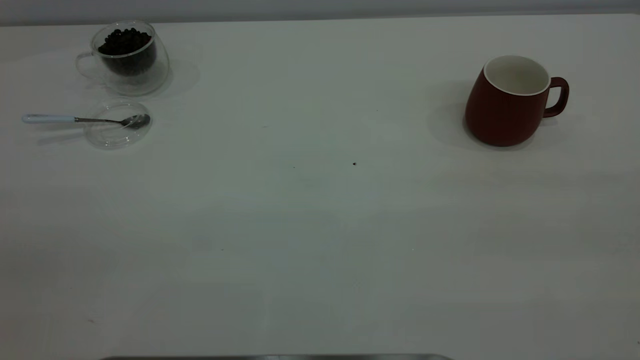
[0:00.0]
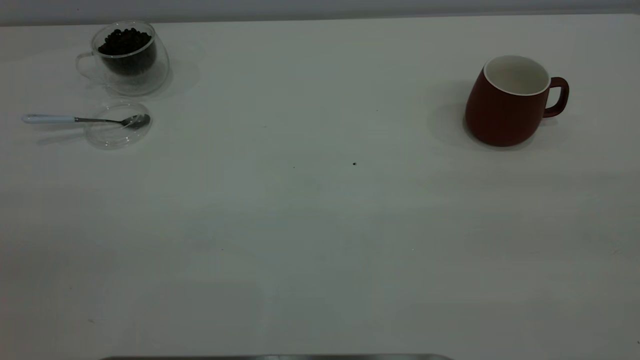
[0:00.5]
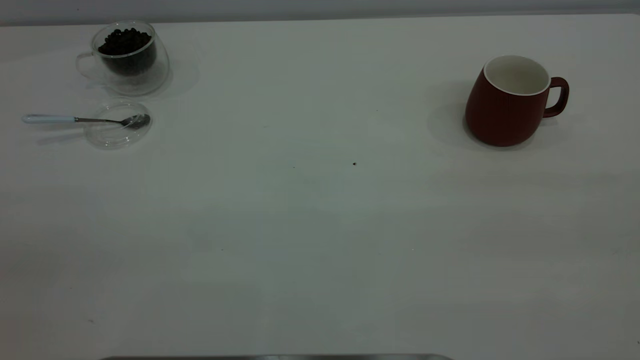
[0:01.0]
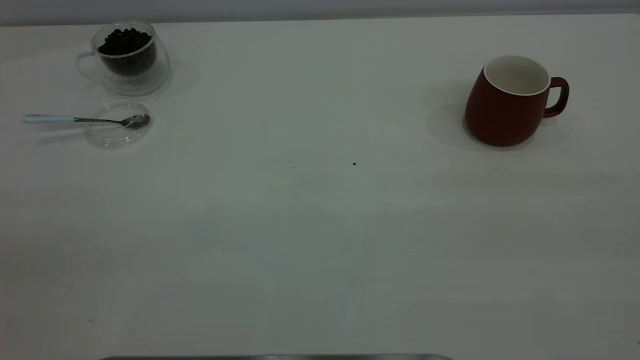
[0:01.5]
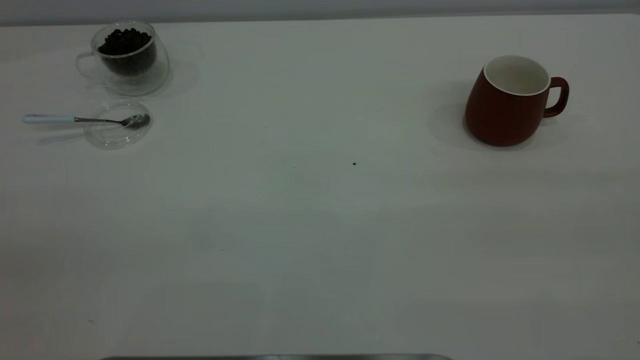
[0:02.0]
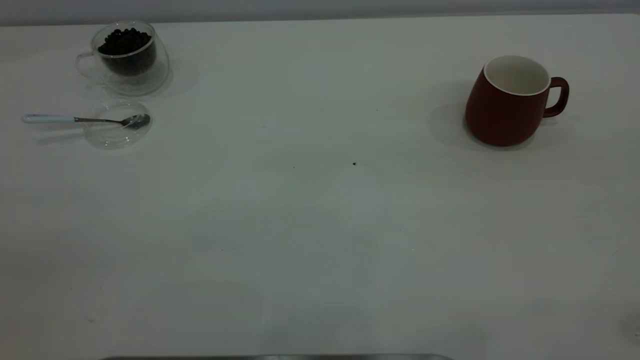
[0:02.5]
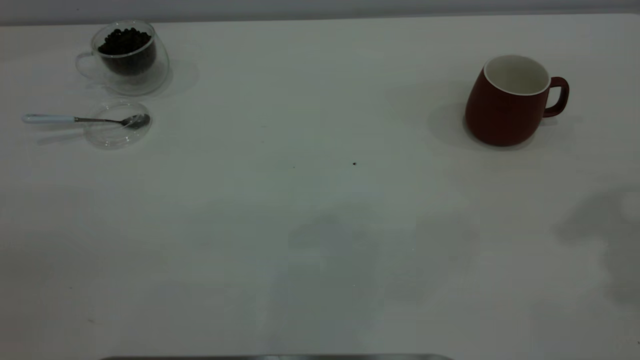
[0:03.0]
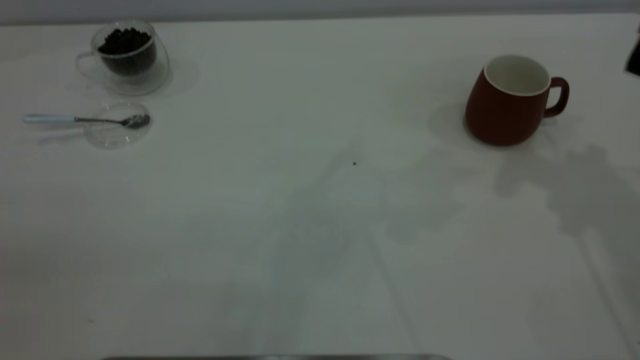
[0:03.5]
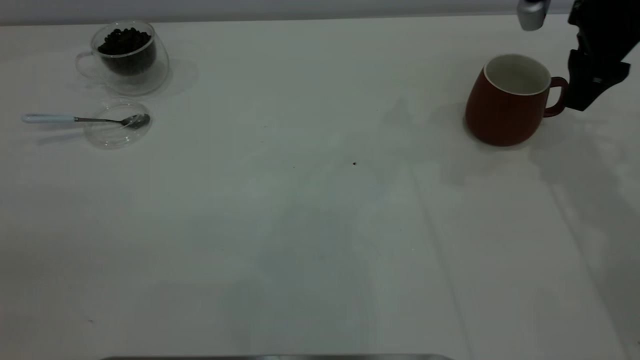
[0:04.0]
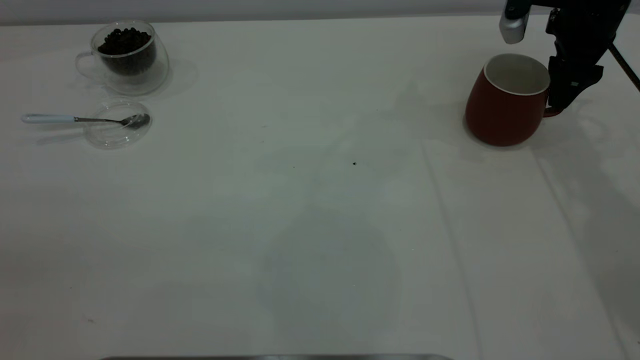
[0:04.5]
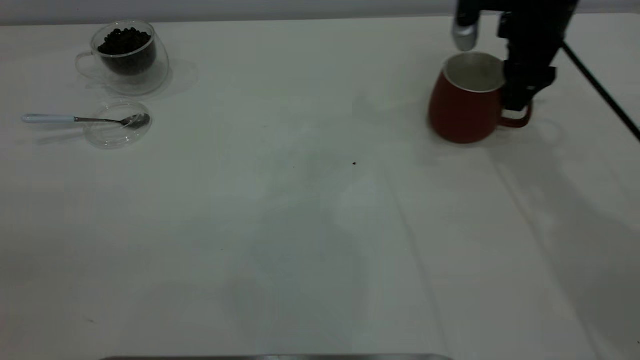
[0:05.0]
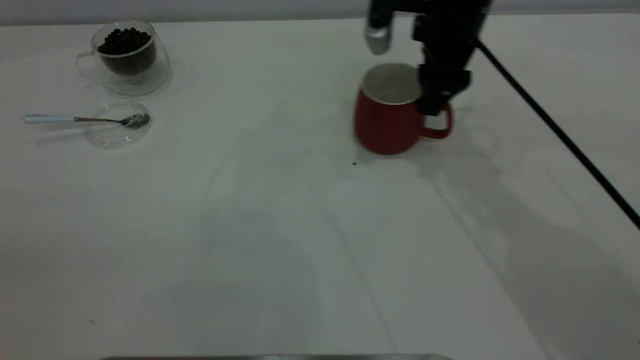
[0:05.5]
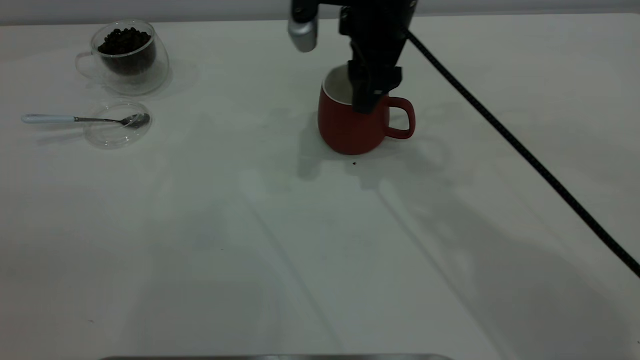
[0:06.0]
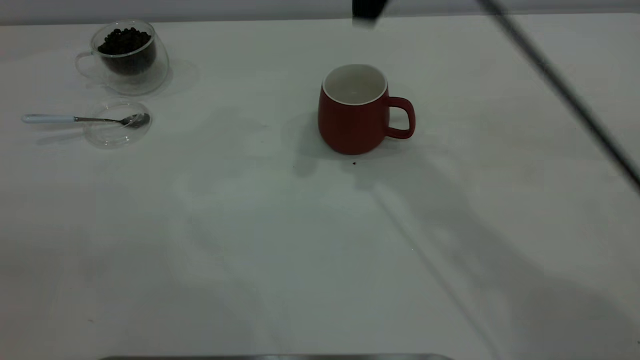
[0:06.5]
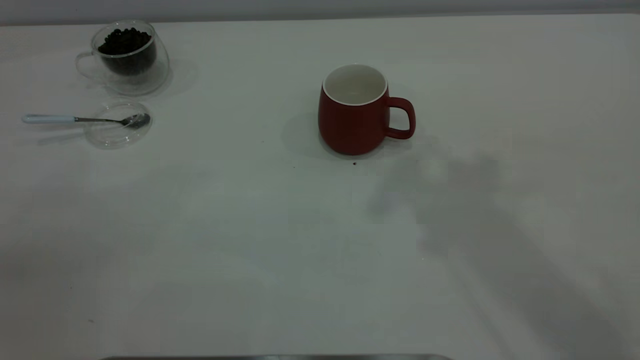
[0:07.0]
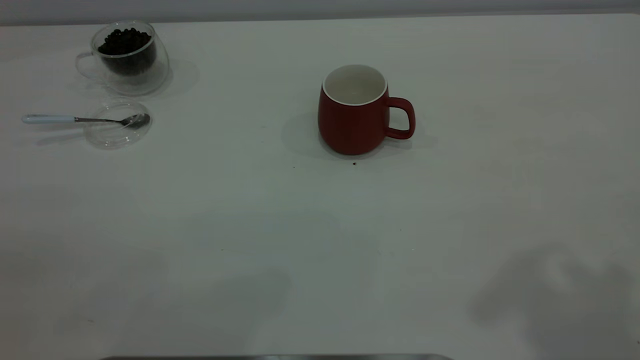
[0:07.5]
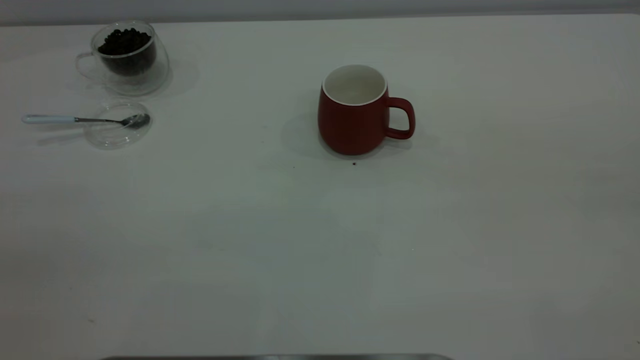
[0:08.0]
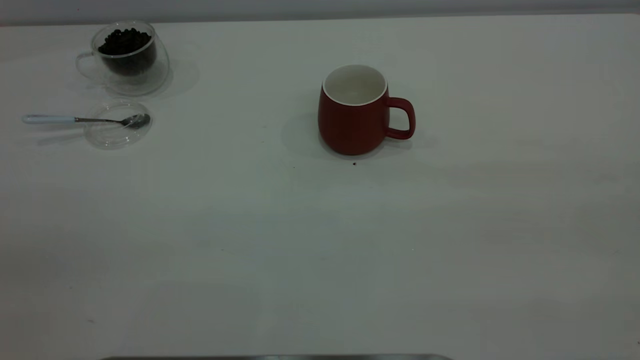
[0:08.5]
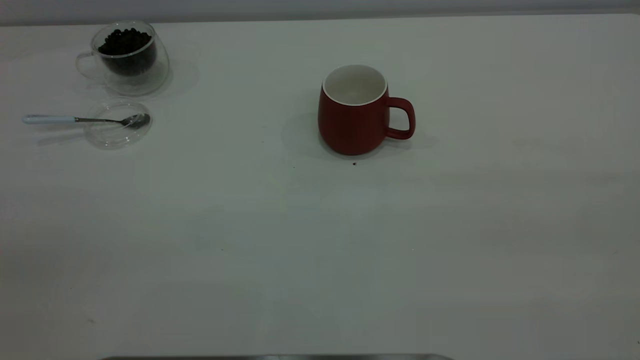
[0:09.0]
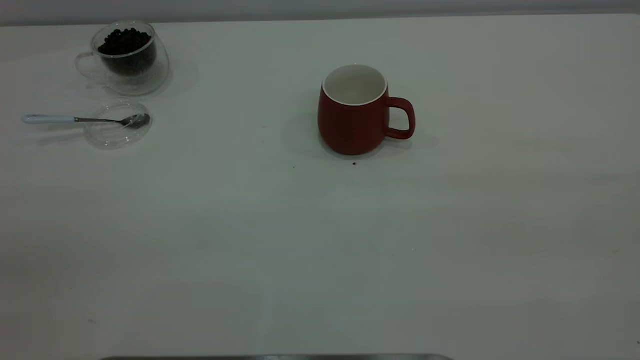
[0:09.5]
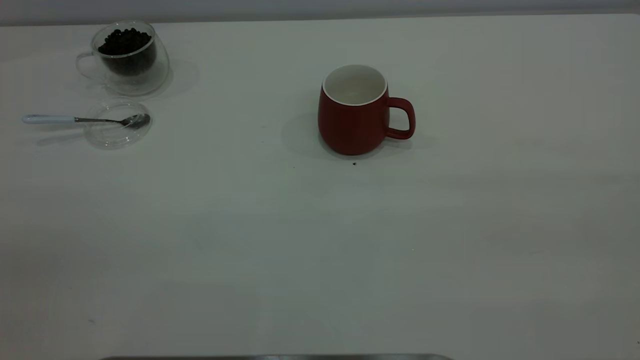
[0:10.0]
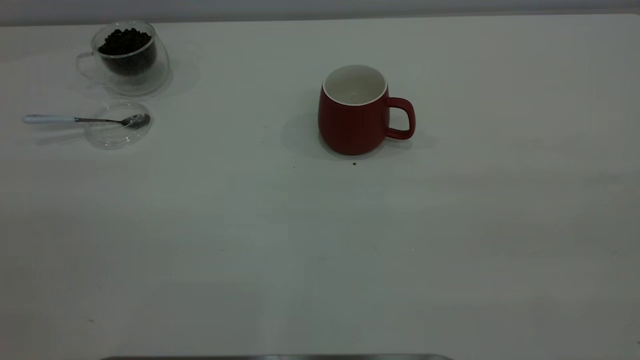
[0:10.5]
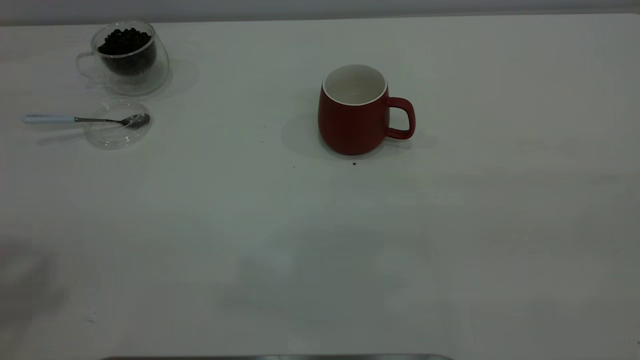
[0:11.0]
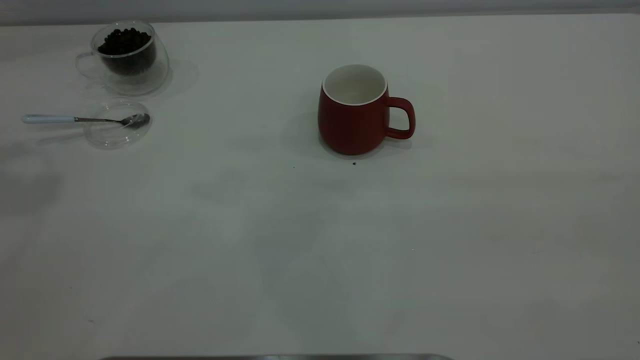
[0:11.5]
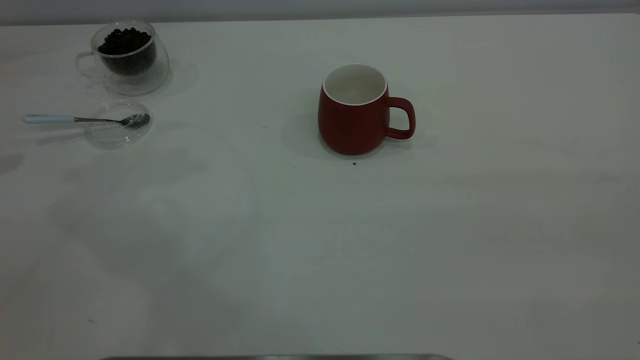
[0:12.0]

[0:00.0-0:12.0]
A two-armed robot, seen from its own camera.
Task of the whole recording: the right gripper place the red cup in the center of the table, the left gripper take the blue spoon from the cup lid and scoop out the coffee beans from the coffee cup and put them into the red cup, the left gripper put the spoon back into the cup lid.
Step, 0:00.0 to 0:06.0: Move the cup to the center of view.
0:00.0 to 0:02.0: The two grippers keep their place.
0:02.0 to 0:04.0: The right gripper goes roughly 50 cm forward and downward.
0:04.0 to 0:06.0: The right gripper is displaced to the left by about 25 cm.
0:06.0 to 0:08.0: The right gripper shifts about 50 cm backward, to the right and upward.

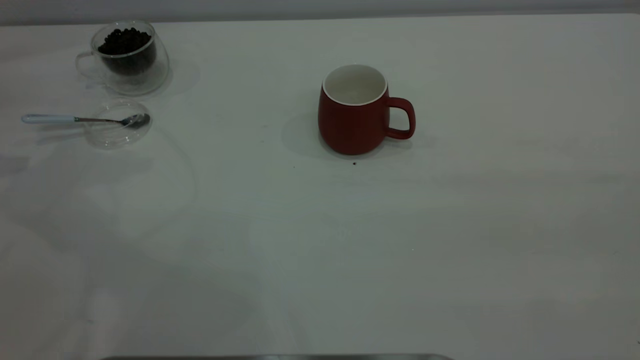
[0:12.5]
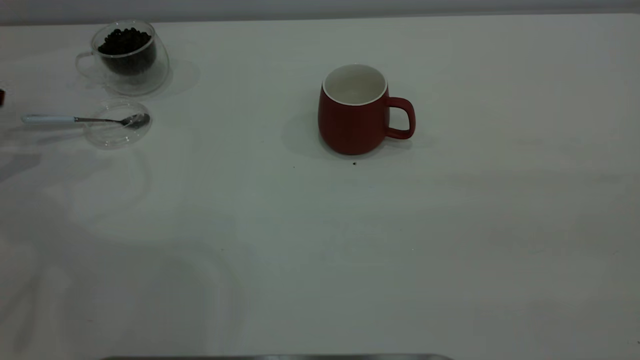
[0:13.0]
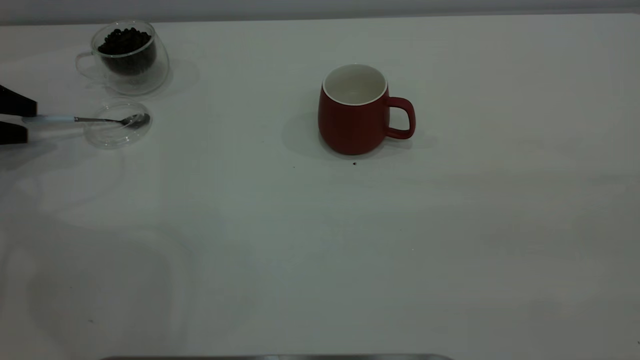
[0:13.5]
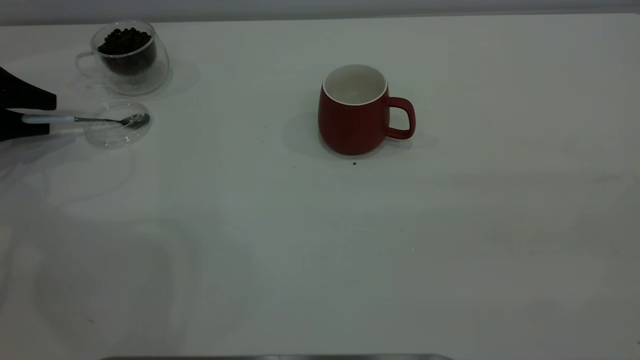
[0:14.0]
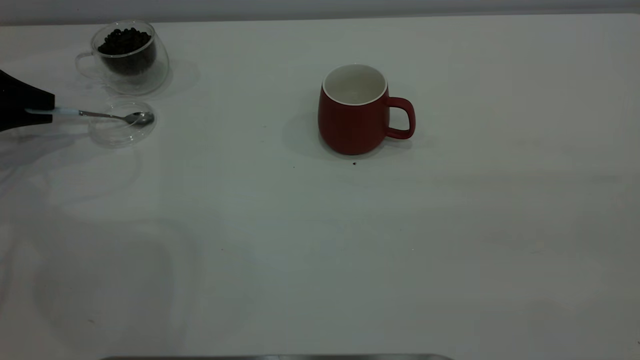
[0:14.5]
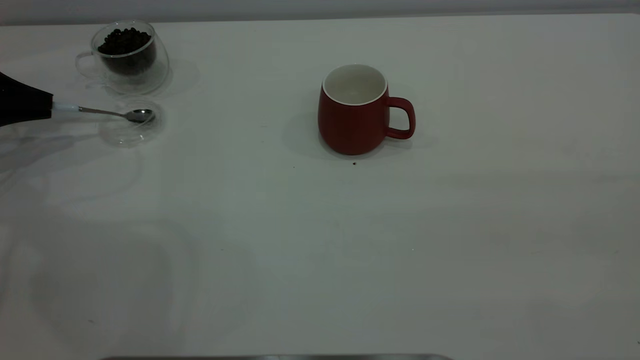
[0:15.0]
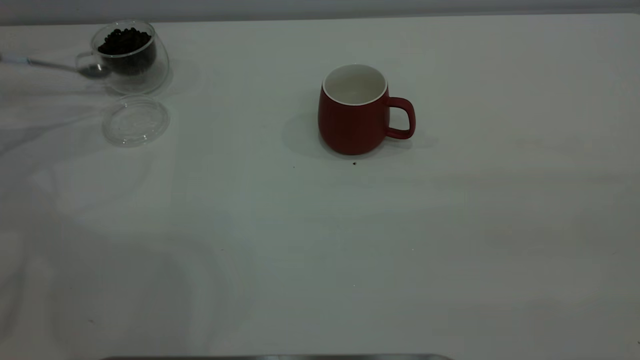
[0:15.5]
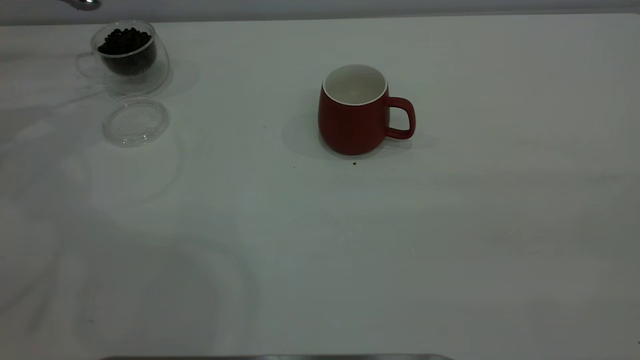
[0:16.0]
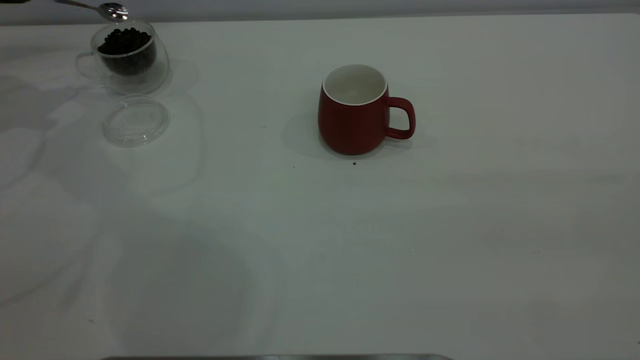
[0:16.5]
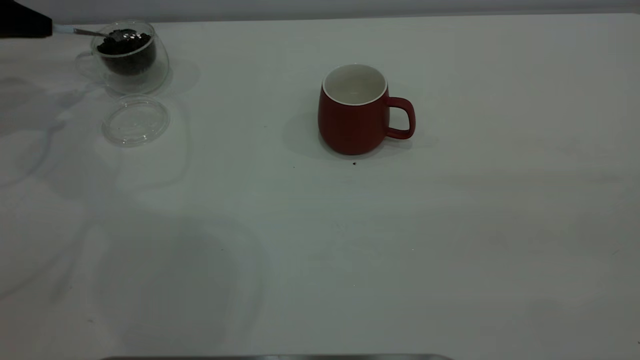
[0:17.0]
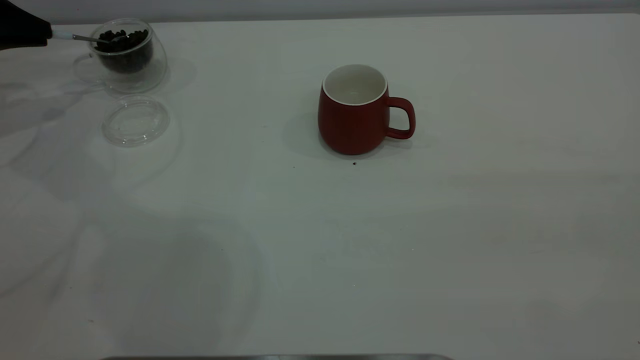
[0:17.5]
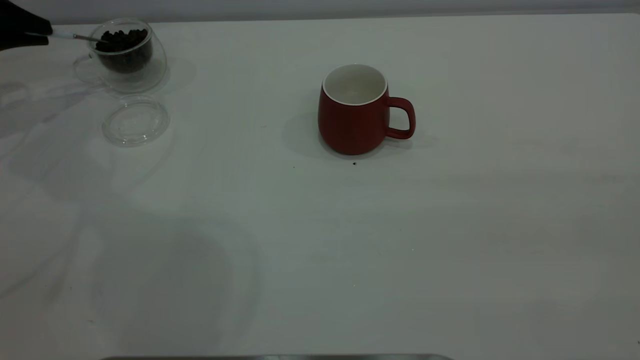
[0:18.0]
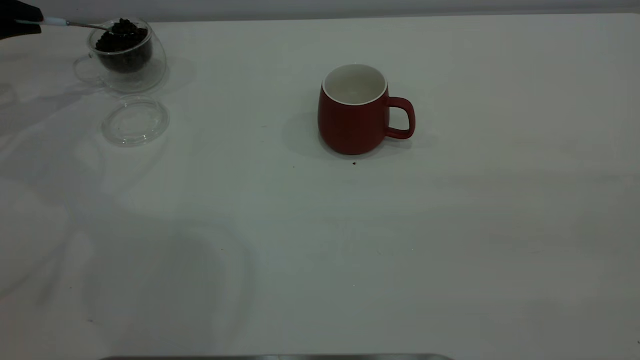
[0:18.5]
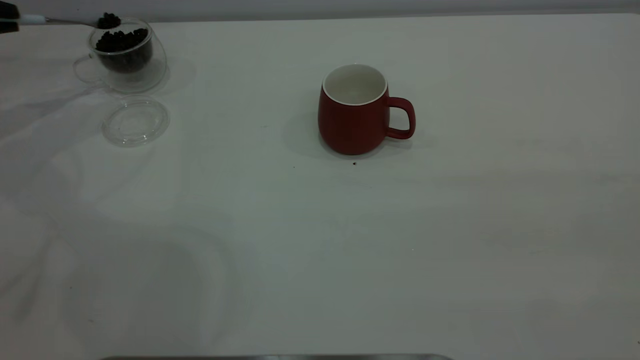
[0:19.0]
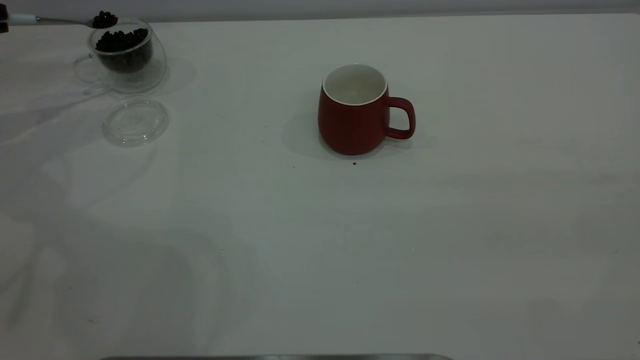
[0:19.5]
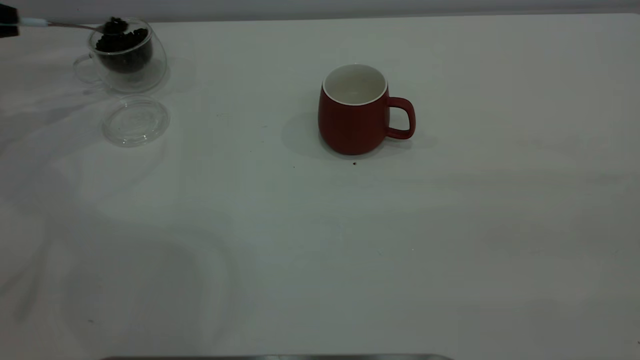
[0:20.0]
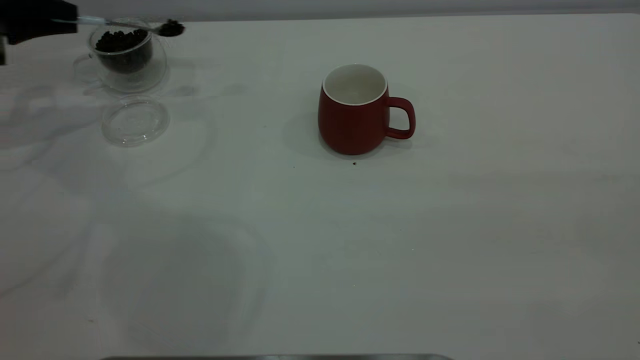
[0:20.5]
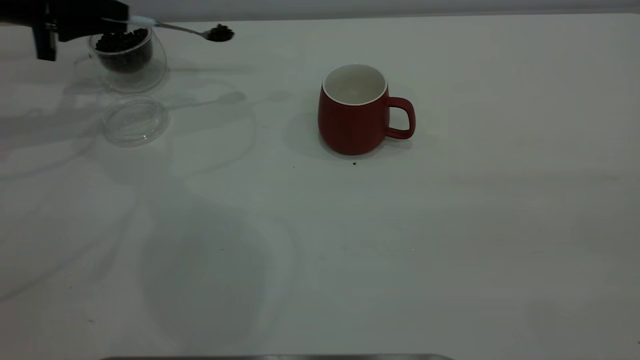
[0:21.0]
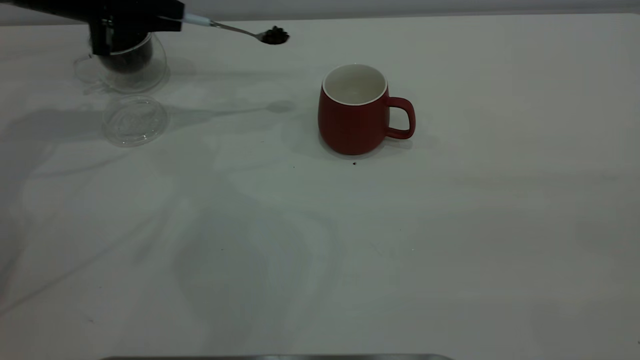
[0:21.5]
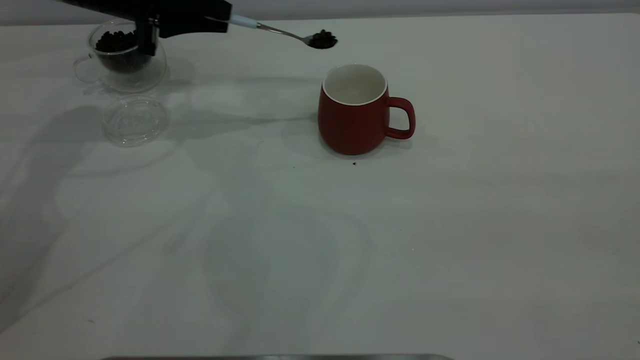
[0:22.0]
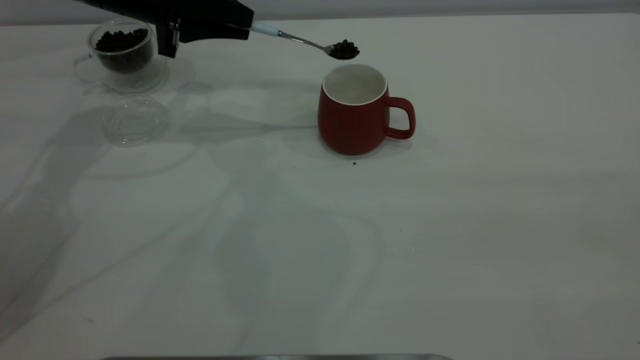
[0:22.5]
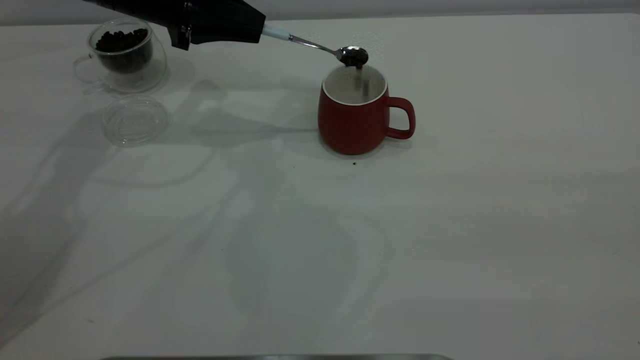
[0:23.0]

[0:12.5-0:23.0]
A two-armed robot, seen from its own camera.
Task of the whole recording: the right gripper place the red cup in the center of the table, the left gripper take the blue spoon from the cup lid and scoop out the coffee beans from the coffee cup and put them into the red cup, the left gripper put the spoon back into the cup lid.
Step, 0:12.5 to 0:15.0: Pick up the spoon.
0:12.5 to 0:14.5: The left gripper travels downward by approximately 15 cm, and closes.
0:14.5 to 0:16.5: The left gripper travels upward and forward by roughly 15 cm.
0:16.5 to 0:19.0: The left gripper changes place by approximately 5 cm.
0:19.0 to 0:21.0: The left gripper heads to the right, covering some 15 cm.
0:21.0 to 0:23.0: The left gripper goes about 15 cm to the right.
